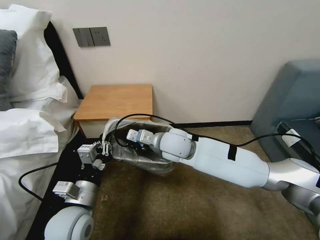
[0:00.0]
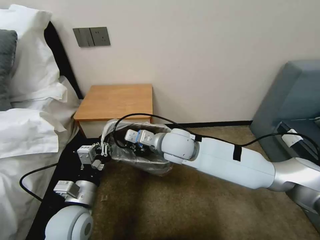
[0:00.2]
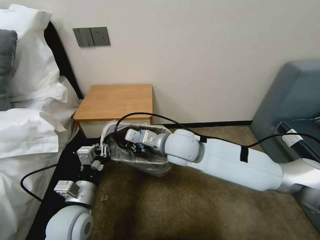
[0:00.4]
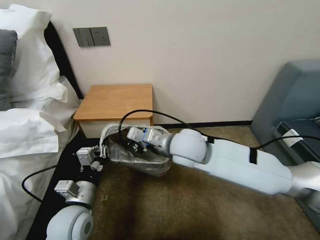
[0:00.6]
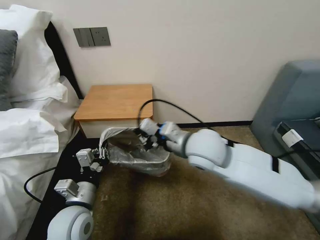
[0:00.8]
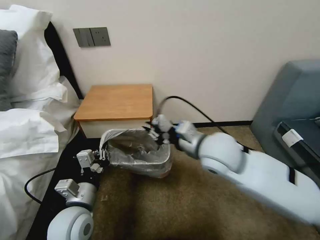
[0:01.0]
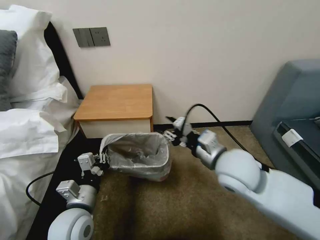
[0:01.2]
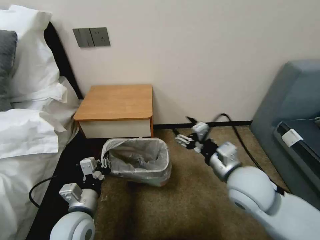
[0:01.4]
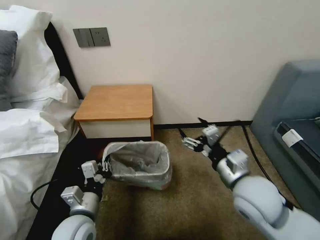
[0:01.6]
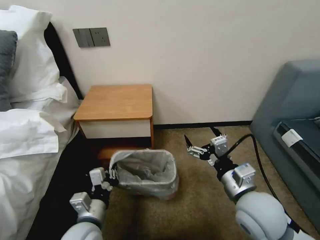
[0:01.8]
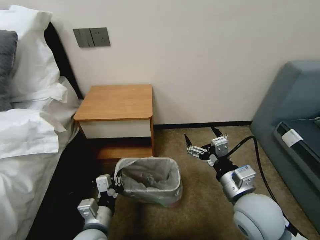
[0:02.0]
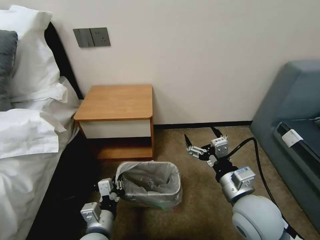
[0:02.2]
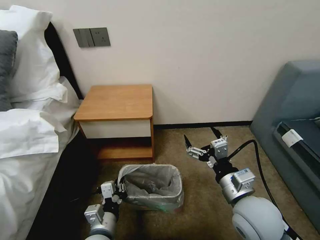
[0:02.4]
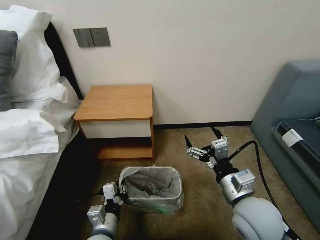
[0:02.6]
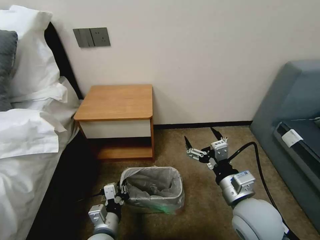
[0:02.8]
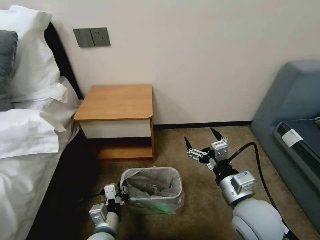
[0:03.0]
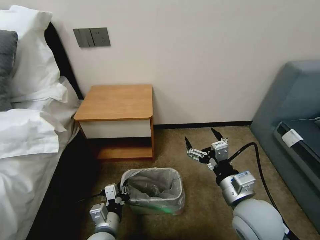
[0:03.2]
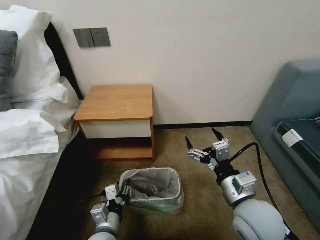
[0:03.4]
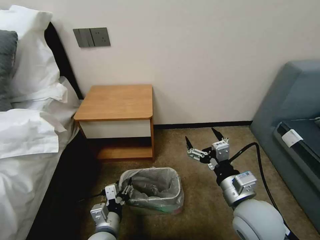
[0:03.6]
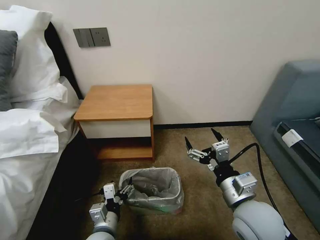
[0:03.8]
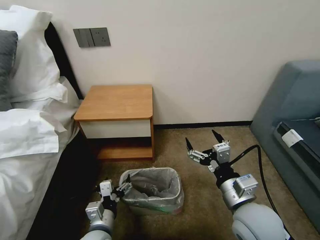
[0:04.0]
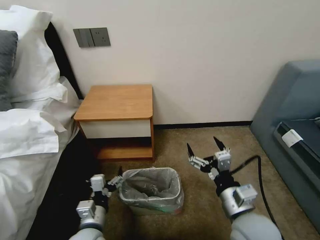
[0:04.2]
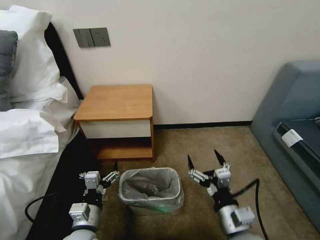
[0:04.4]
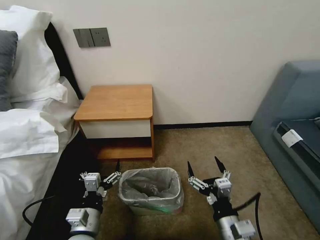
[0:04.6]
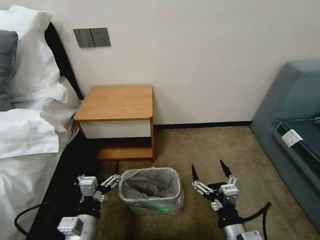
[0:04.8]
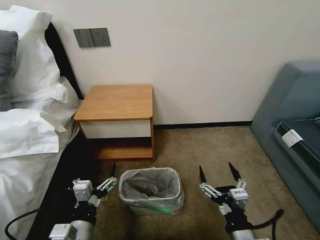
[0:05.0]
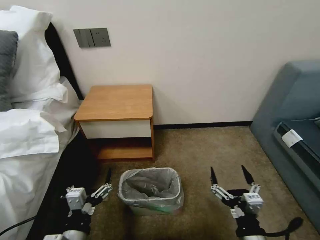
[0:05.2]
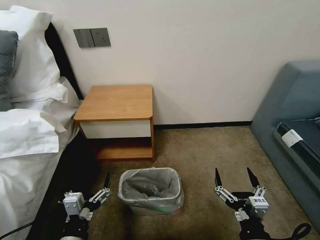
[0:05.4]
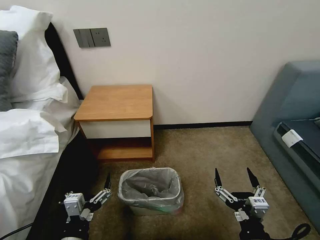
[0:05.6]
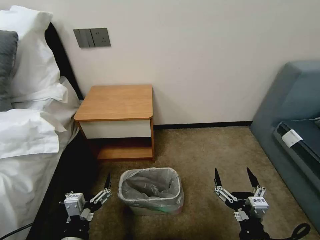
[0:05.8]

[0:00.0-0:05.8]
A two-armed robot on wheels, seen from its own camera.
Task of the whole recording: Pick up the garbage bag from the table and place it over the trash can.
0:00.0 to 0:01.4: The right gripper moves to the right and backward, about 20 cm, and opens.
0:01.4 to 0:02.8: The left gripper travels downward and to the right by approximately 10 cm. The right gripper goes approximately 5 cm backward.
0:02.8 to 0:04.4: The right gripper is displaced downward and backward by roughly 10 cm, while the left gripper shifts by approximately 5 cm, and opens.
0:04.4 to 0:05.8: Both grippers move backward, approximately 10 cm.

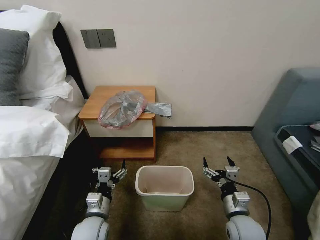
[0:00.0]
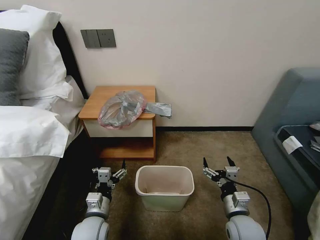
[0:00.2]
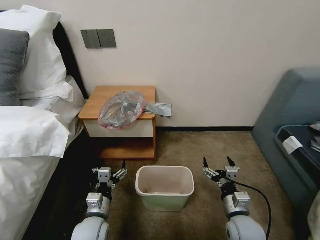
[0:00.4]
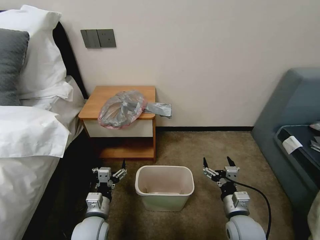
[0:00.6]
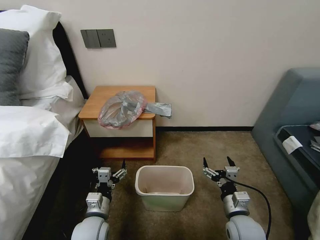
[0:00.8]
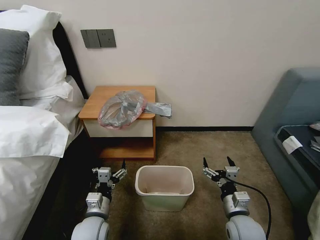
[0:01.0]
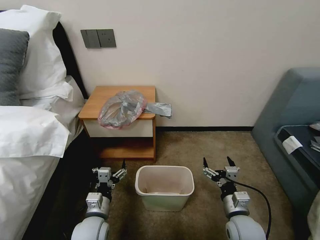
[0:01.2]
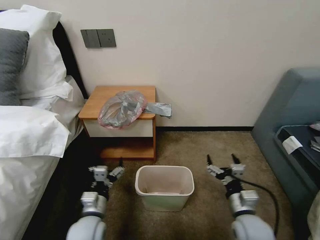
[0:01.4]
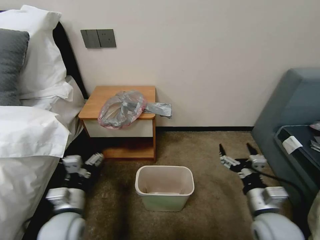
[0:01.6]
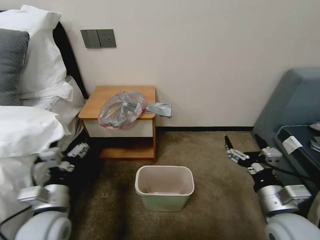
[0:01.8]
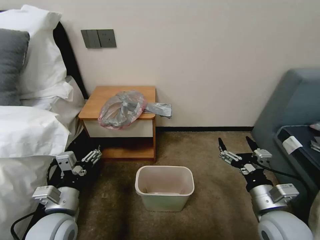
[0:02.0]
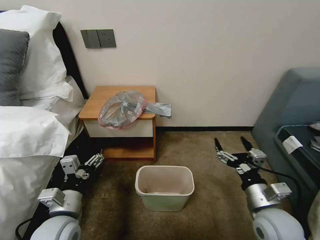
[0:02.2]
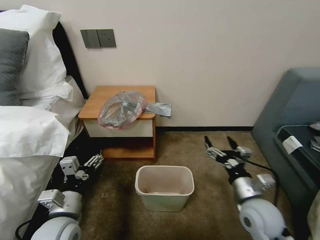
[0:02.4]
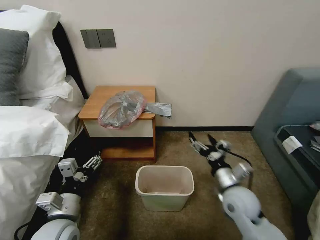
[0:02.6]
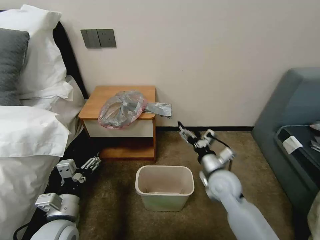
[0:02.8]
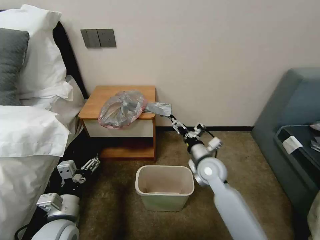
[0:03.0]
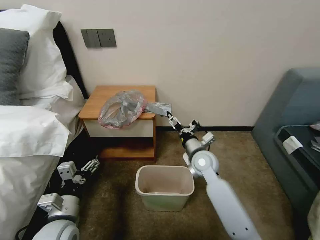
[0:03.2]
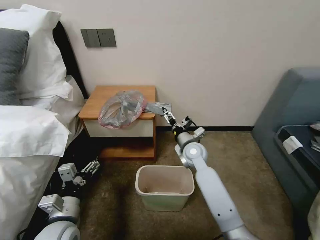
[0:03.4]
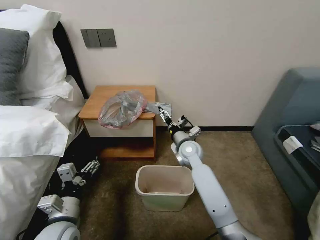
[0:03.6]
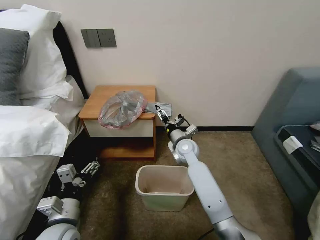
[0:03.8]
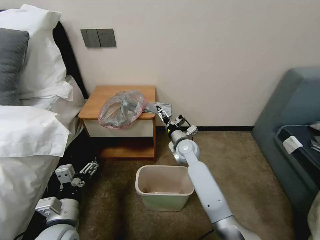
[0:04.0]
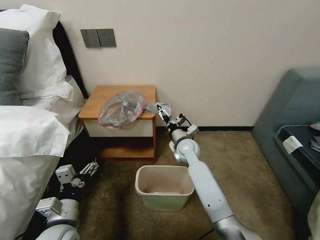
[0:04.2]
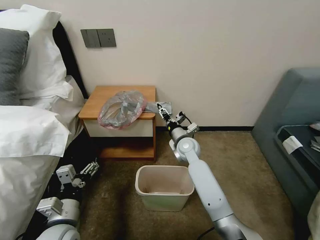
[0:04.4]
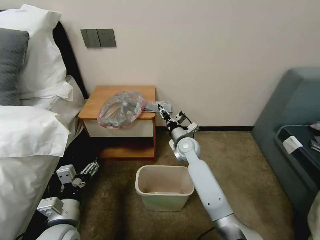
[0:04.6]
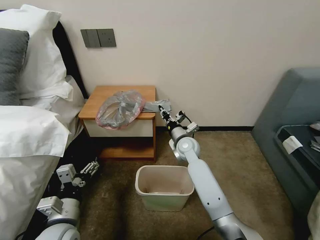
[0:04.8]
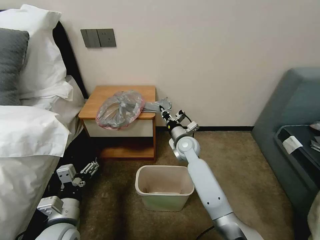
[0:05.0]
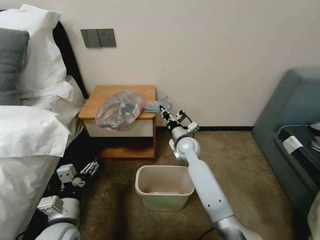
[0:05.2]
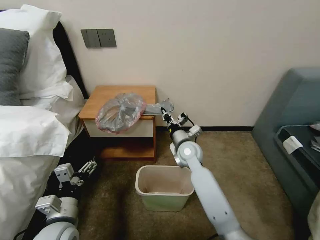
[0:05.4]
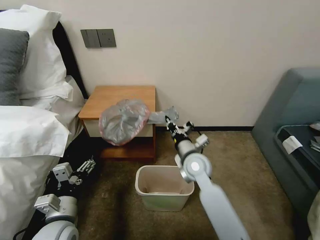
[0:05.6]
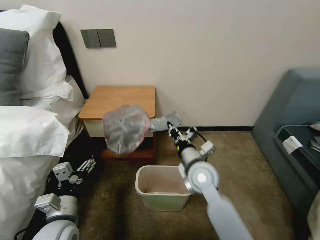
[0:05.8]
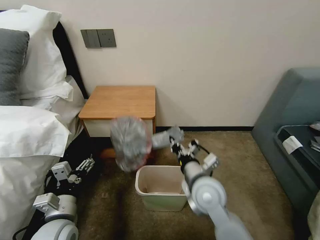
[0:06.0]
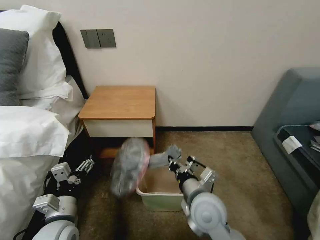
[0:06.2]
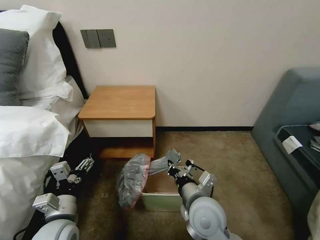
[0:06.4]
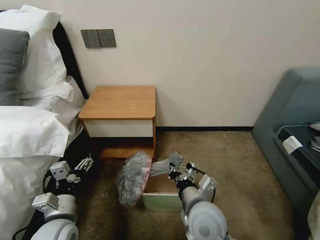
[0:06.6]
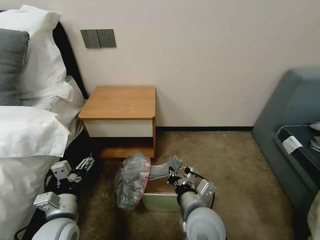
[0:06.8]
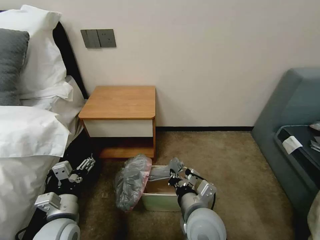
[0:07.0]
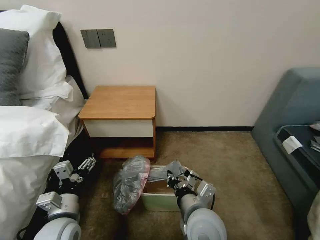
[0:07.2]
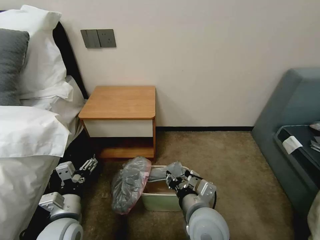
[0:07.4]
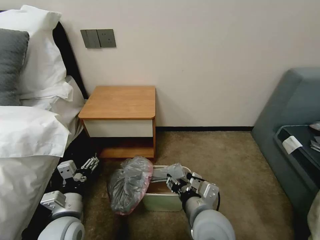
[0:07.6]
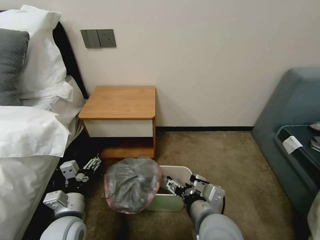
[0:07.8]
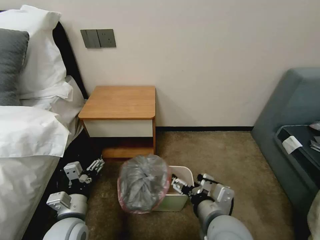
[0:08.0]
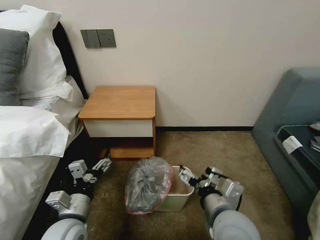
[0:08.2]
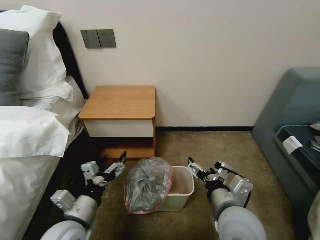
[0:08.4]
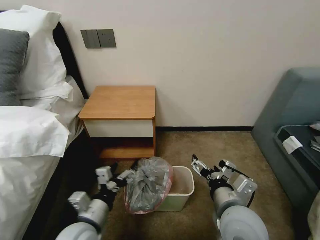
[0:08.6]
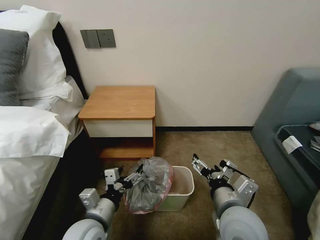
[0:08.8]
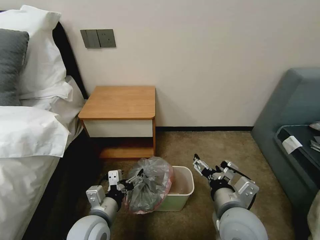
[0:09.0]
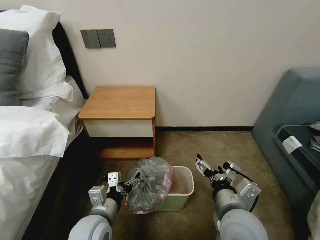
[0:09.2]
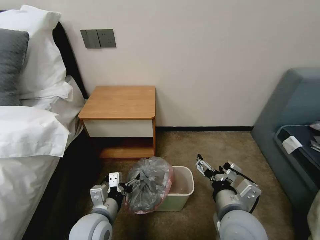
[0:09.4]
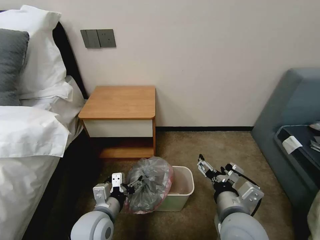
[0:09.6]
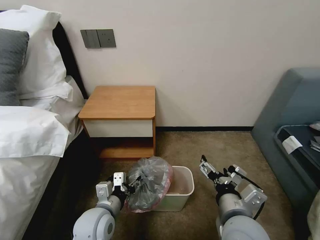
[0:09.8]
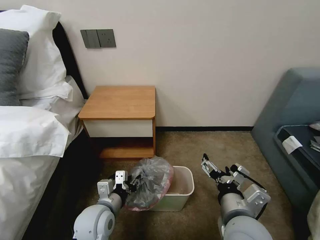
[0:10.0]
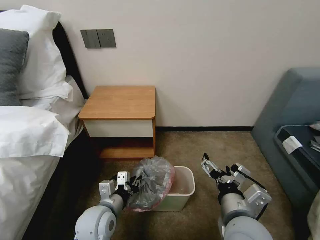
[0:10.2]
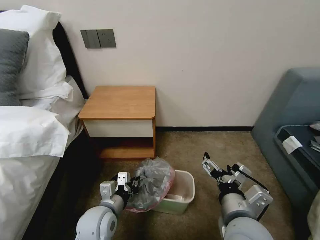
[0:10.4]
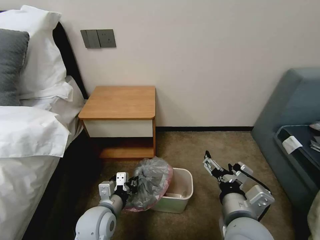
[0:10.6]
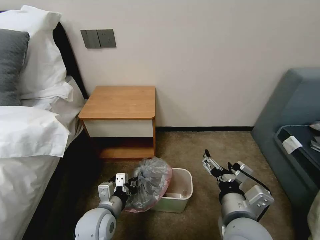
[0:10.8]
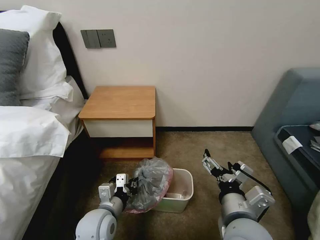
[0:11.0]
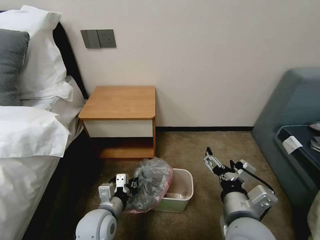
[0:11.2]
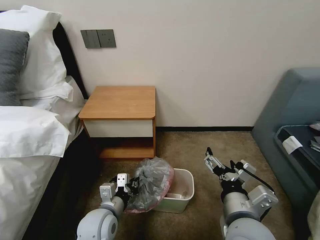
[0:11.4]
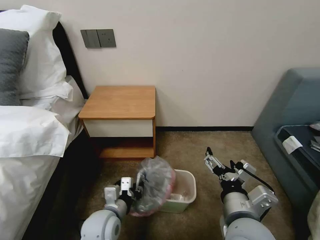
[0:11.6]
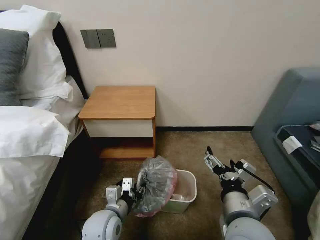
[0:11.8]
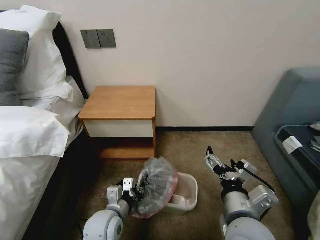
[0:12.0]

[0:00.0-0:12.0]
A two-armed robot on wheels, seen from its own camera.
Task of the whole recording: Pick up the garbage bag from the table and place it over the trash can.
0:01.6 to 0:03.0: The right gripper moves forward and to the left, roughly 20 cm.
0:03.0 to 0:04.4: The right gripper is displaced forward and to the left by roughly 10 cm, and closes up.
0:04.4 to 0:06.0: The right gripper heads backward, covering roughly 20 cm, and closes up.
0:06.0 to 0:07.6: The right gripper shifts some 10 cm backward, and opens its fingers.
0:07.6 to 0:09.0: Both grippers travel together to the right, about 5 cm. The right gripper opens its fingers.
0:09.0 to 0:10.4: The left gripper closes up.
0:10.4 to 0:12.0: The grippers make only small movements.

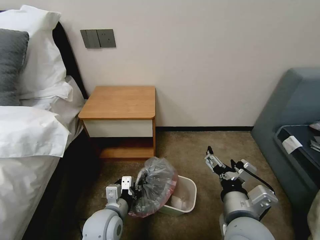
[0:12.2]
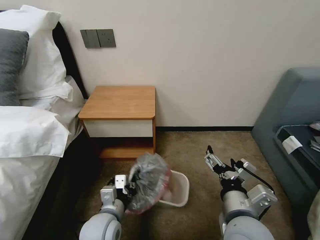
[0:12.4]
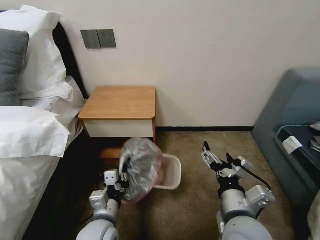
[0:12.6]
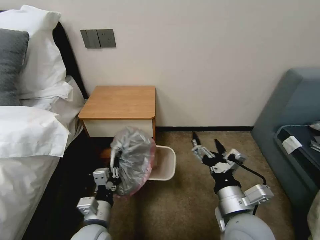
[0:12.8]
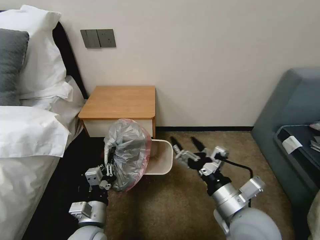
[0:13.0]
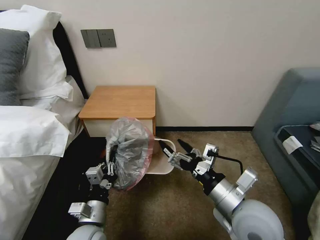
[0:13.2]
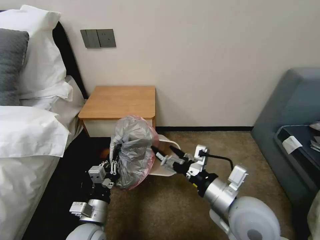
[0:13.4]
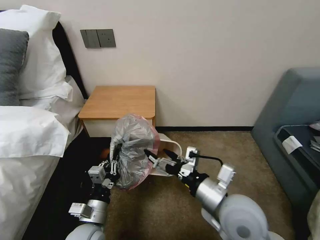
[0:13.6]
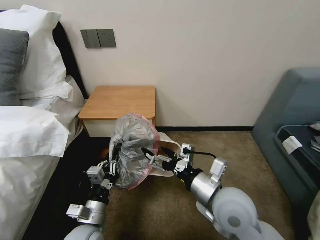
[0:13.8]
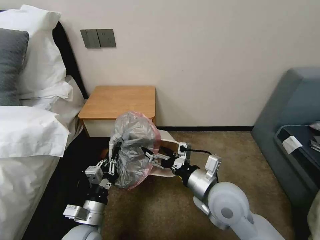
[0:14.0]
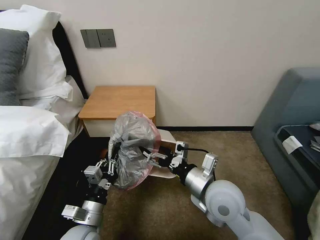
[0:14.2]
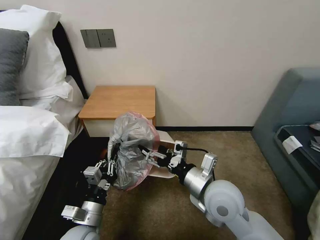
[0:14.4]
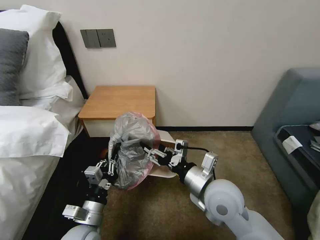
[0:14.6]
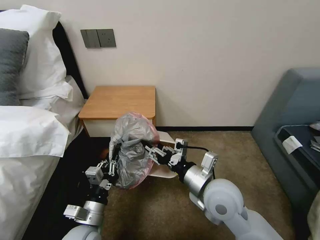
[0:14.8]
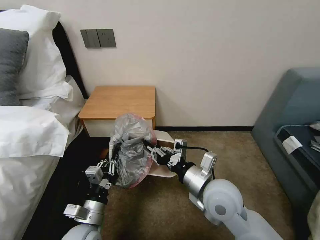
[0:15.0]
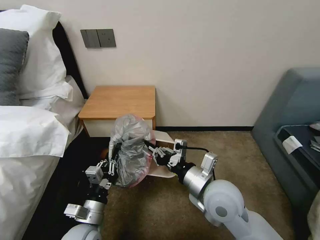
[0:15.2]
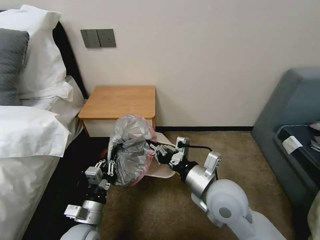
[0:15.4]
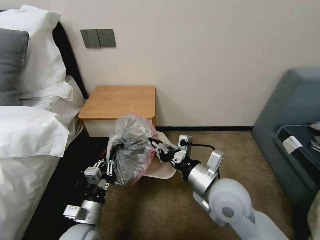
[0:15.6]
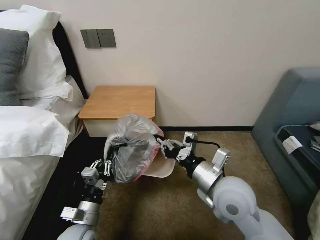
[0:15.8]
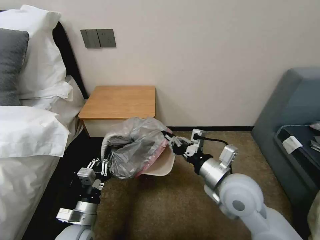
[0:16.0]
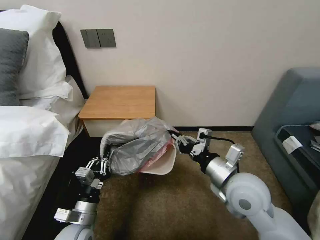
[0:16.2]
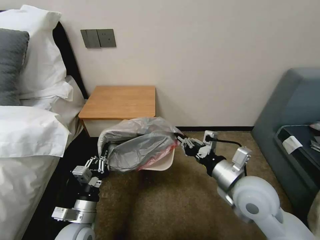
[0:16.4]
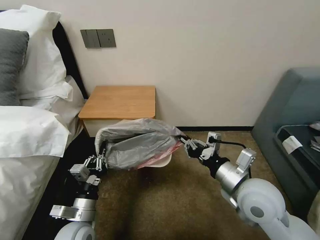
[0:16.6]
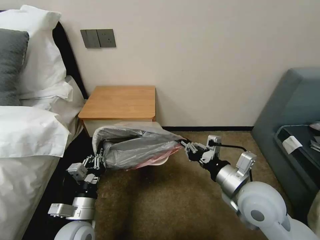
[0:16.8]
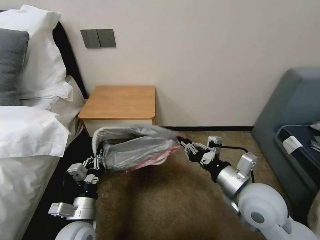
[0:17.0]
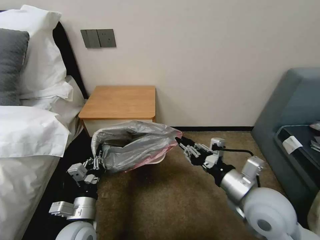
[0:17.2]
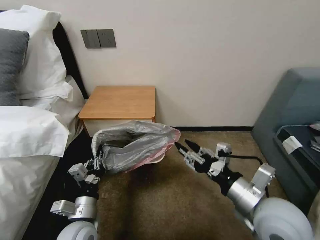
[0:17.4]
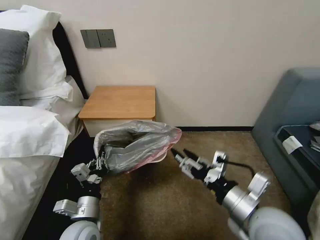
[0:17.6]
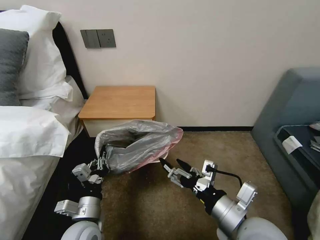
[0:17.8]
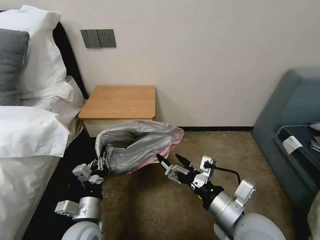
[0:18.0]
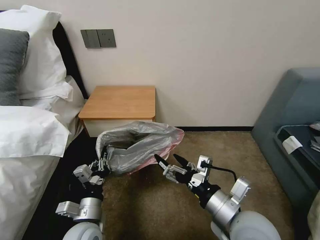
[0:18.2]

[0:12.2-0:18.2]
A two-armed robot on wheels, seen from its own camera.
Task of the whole recording: Pick up the garbage bag from the table and place it over the trash can.
0:12.2 to 0:13.8: The left gripper shifts by approximately 5 cm. Meanwhile the right gripper shifts about 5 cm forward.
0:13.8 to 0:15.2: The right gripper closes up.
0:15.2 to 0:16.6: The right gripper travels to the right by roughly 10 cm.
0:16.6 to 0:18.2: The right gripper goes some 5 cm backward, and opens.
